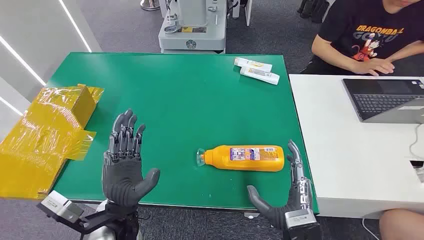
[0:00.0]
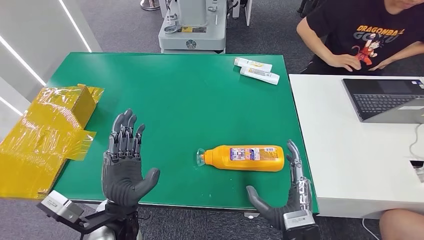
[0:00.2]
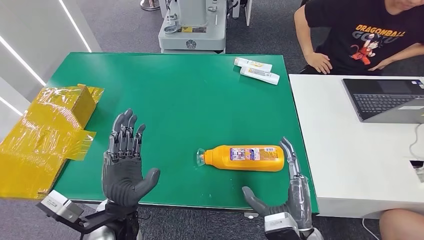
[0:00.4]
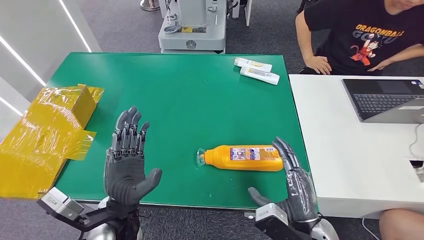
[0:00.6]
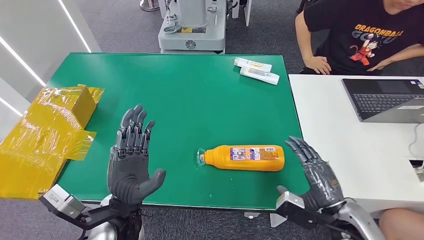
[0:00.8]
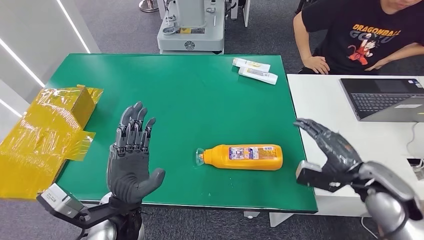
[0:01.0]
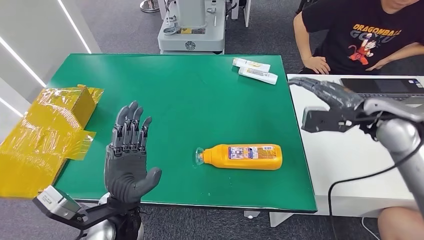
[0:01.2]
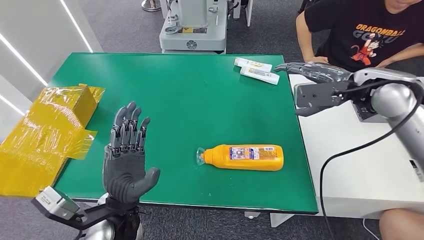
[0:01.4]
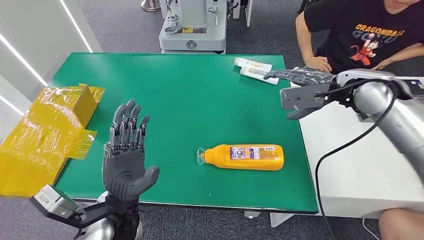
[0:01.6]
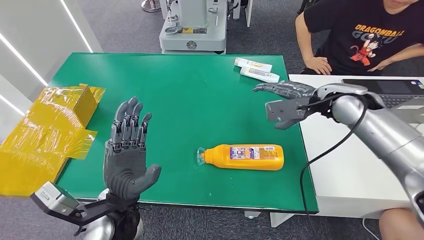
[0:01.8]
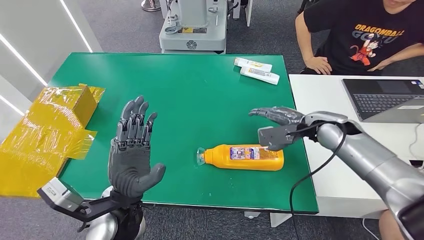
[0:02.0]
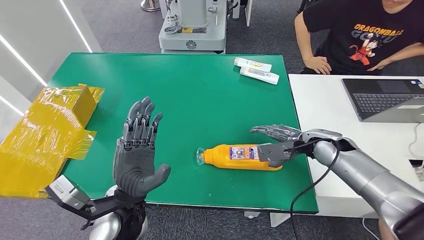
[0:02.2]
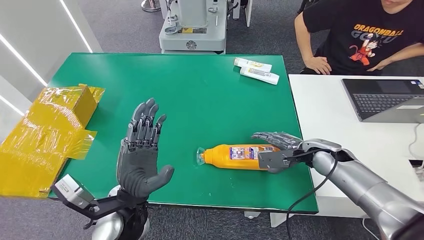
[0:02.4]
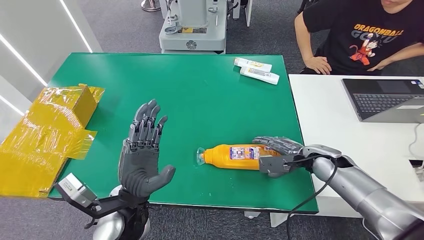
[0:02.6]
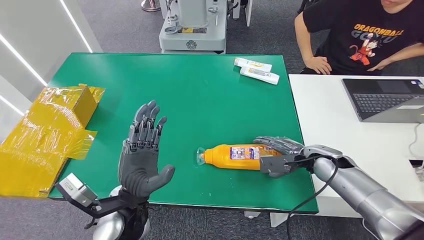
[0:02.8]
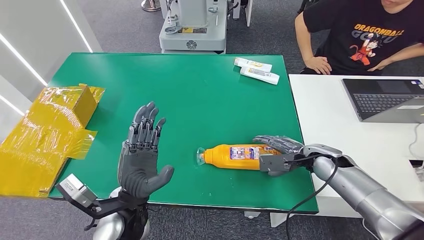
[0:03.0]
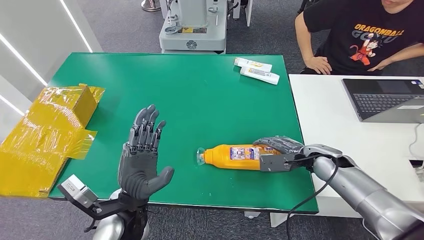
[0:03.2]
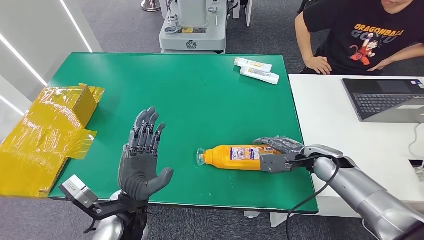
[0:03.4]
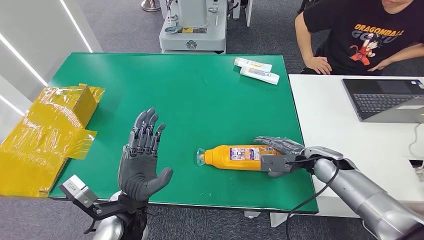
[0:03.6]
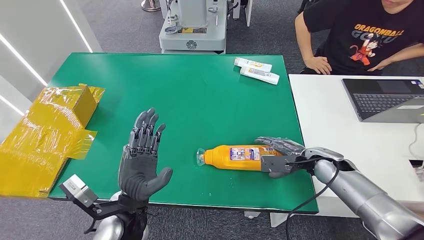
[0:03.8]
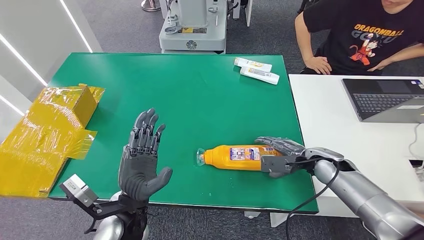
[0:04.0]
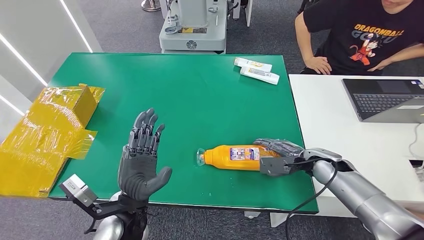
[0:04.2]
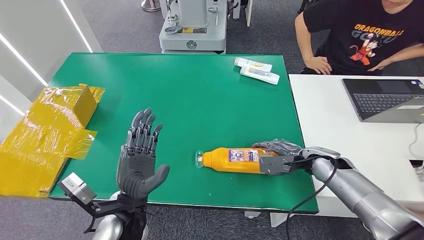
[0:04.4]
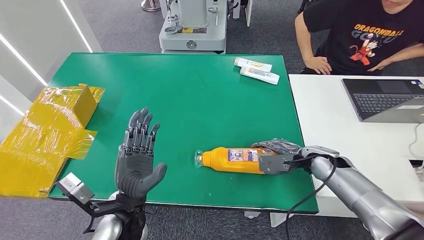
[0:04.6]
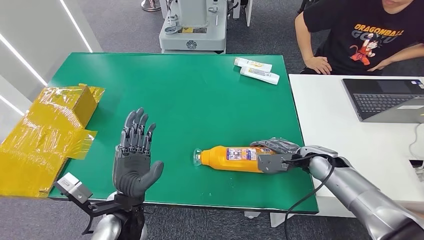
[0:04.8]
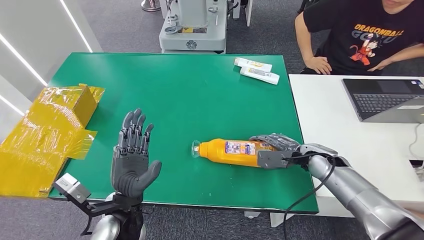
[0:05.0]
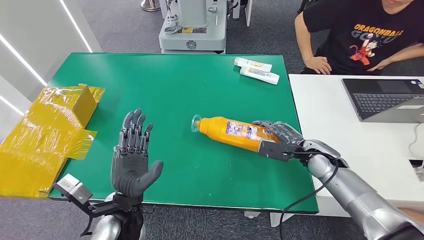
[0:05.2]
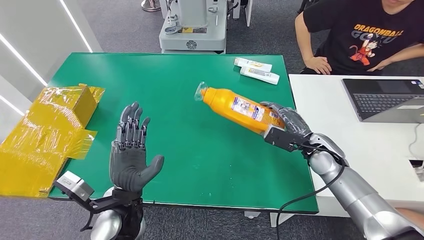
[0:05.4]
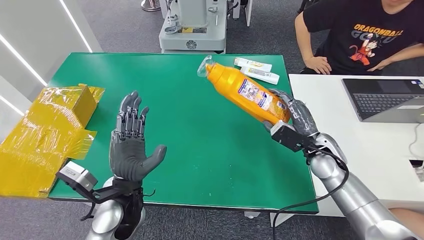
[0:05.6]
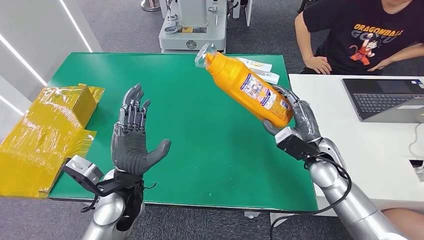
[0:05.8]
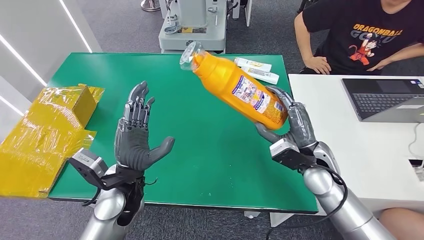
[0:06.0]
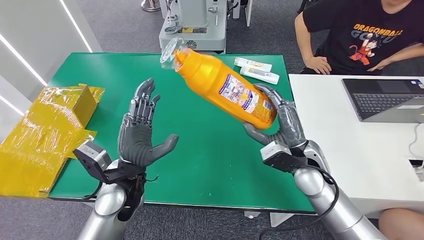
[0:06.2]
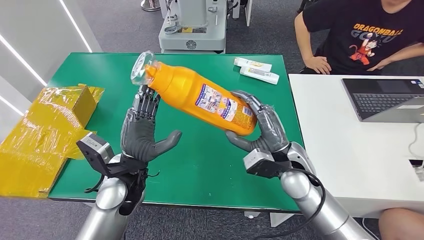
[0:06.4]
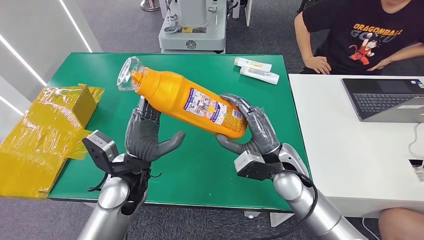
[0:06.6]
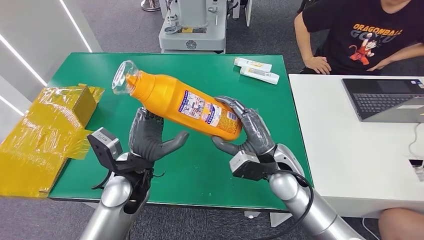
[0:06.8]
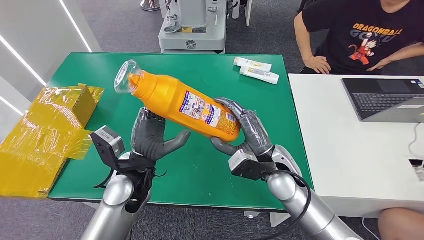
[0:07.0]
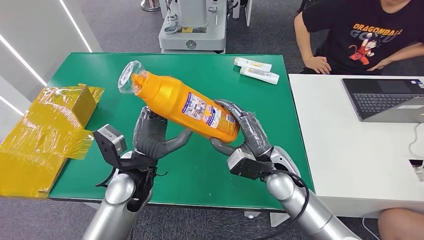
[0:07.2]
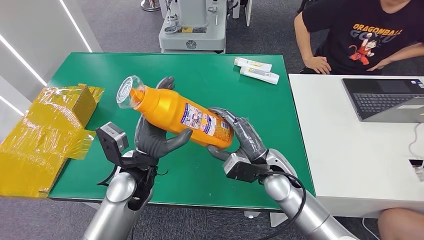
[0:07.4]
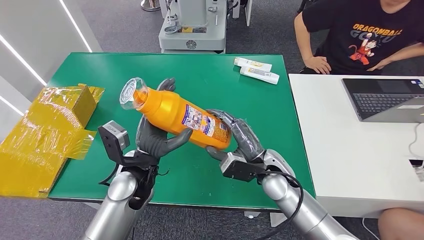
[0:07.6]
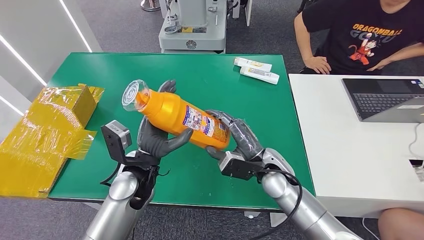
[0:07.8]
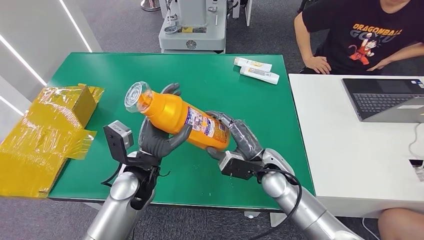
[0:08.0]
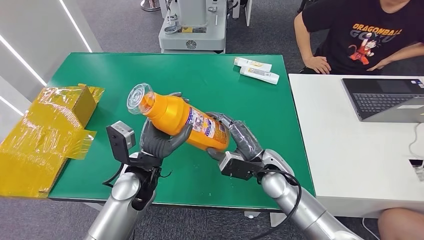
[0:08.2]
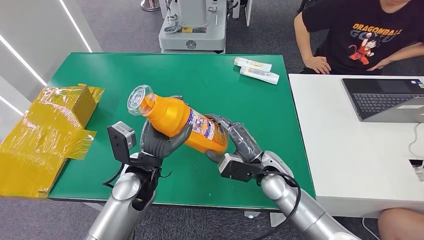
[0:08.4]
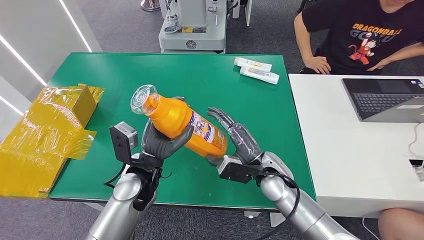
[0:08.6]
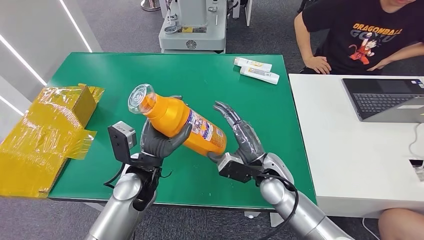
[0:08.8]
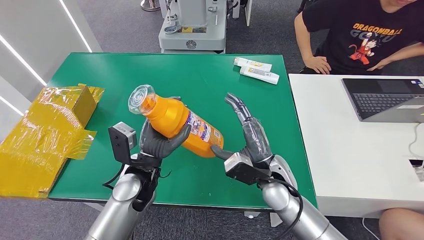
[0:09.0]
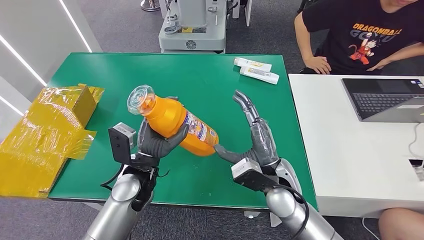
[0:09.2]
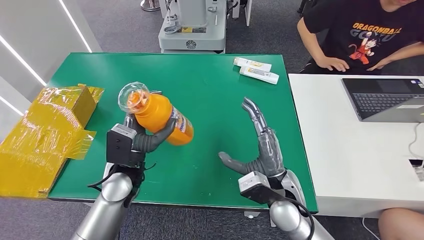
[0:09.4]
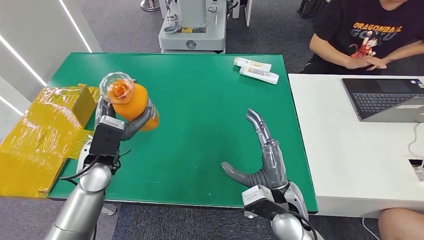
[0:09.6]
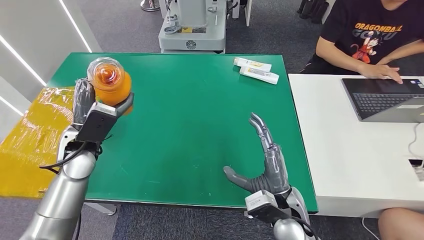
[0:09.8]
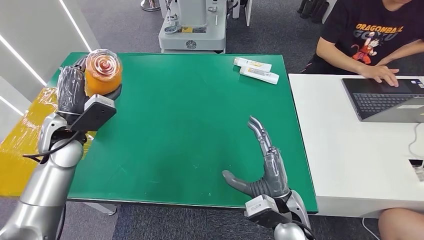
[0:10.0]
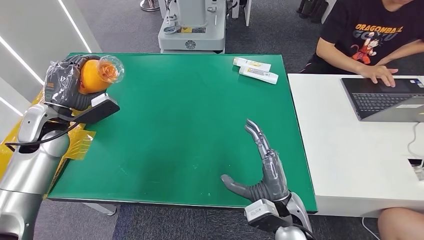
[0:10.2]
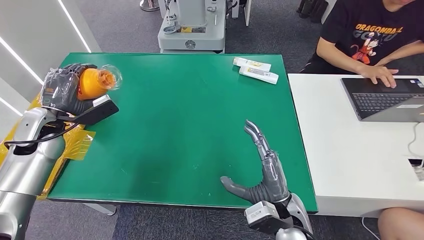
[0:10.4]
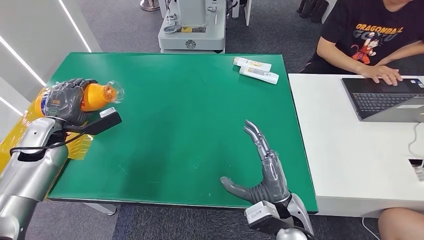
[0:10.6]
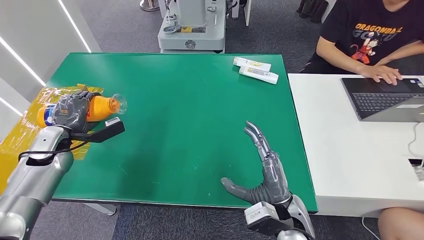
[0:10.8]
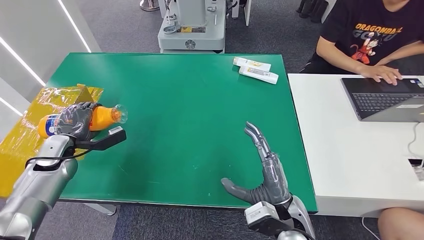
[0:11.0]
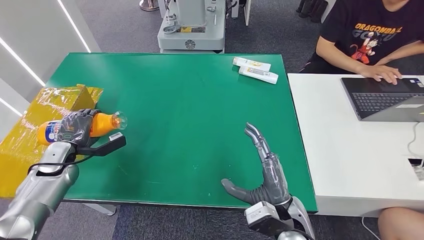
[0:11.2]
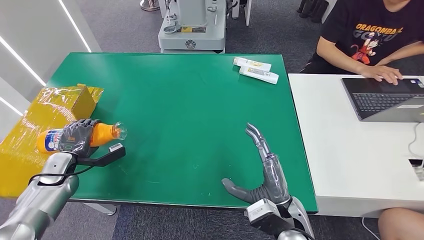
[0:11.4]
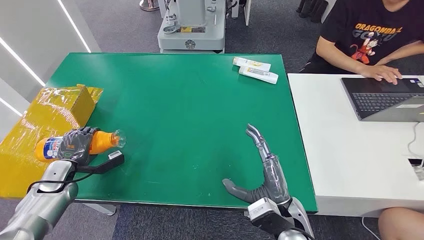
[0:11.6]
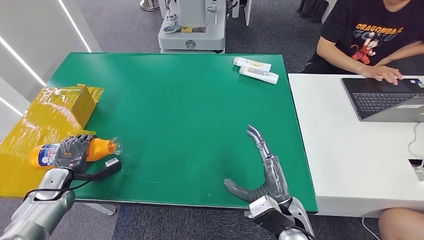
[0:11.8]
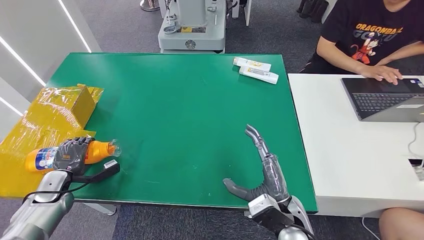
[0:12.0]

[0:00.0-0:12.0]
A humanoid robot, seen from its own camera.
Step, 0:00.0 to 0:06.0: Pick up the bottle from the table.
0:01.6 to 0:03.0: The right hand moves downward, approximately 20 cm.
0:03.0 to 0:04.4: The hands make only small movements.
0:04.4 to 0:06.0: The right hand heads to the left and upward, covering approximately 10 cm. Meanwhile the left hand goes about 5 cm forward.
0:07.6 to 0:09.0: The hands move only a little.
0:10.4 to 0:12.0: The left hand shifts some 20 cm downward and backward.

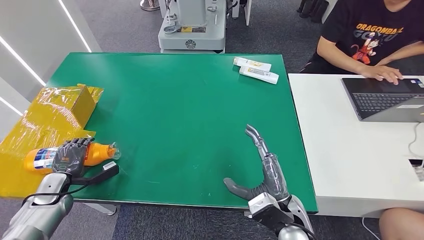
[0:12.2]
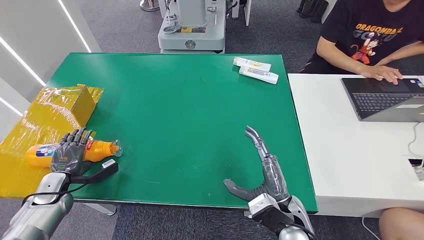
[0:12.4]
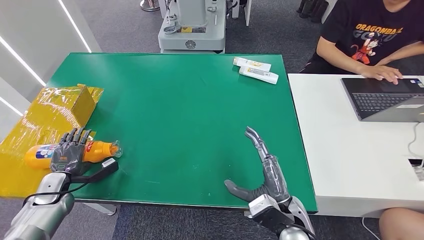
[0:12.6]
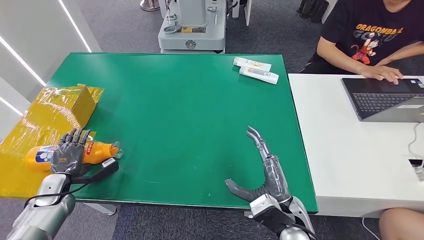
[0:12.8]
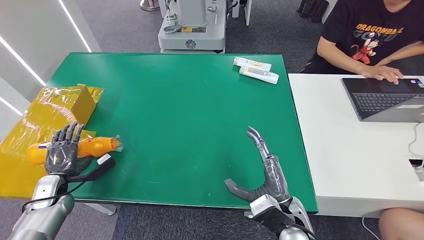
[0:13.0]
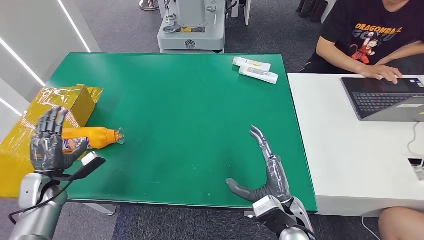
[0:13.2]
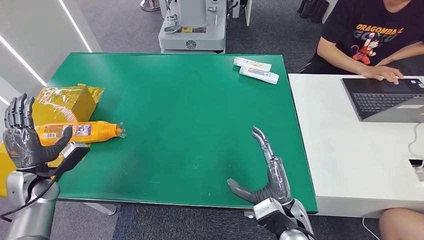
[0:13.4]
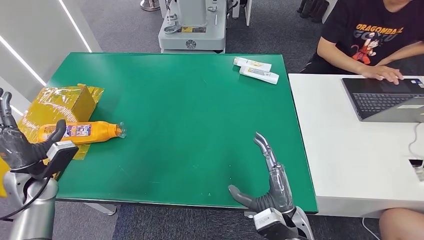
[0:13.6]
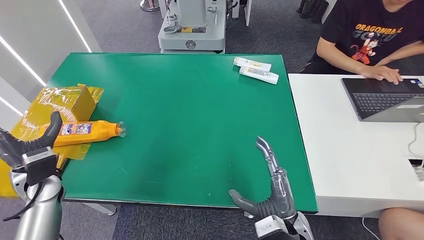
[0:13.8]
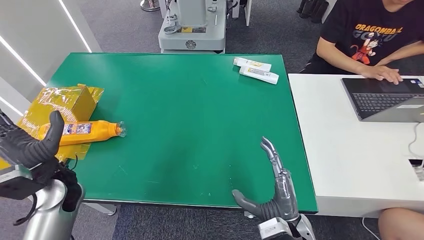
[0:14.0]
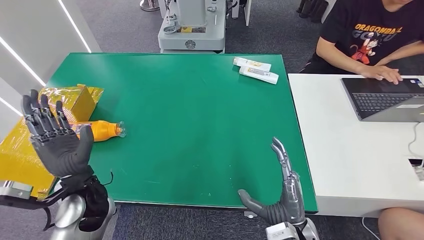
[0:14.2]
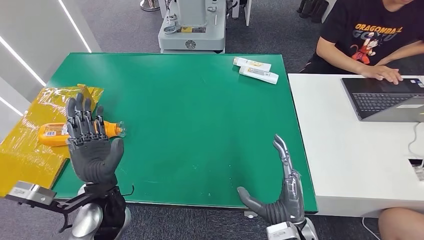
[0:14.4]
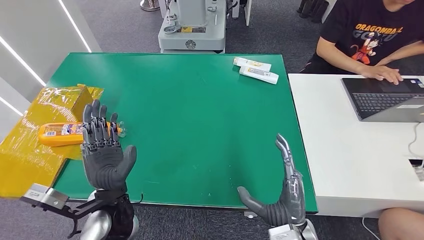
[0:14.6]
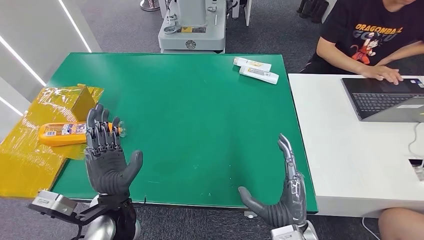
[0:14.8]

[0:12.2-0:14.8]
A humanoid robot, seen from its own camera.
Step, 0:12.2 to 0:14.8: Turn the bottle to the front side.
0:12.2 to 0:13.4: The left hand moves upward, roughly 5 cm.
0:13.4 to 0:14.8: The left hand travels to the right by roughly 25 cm.

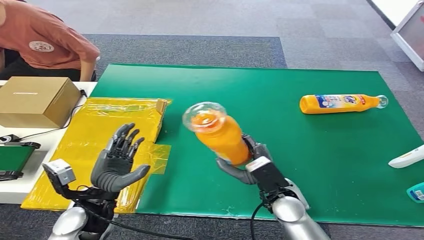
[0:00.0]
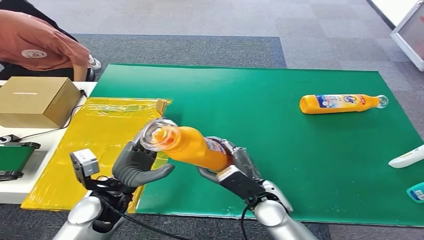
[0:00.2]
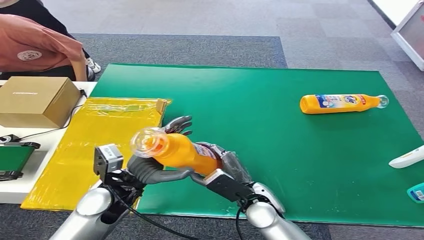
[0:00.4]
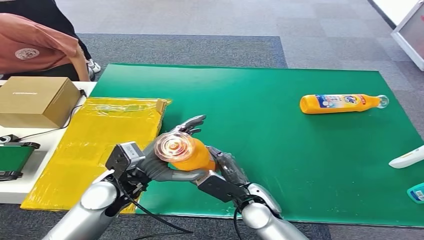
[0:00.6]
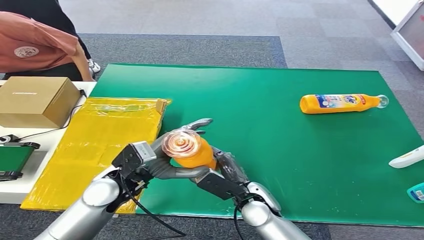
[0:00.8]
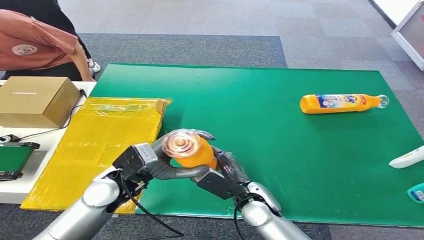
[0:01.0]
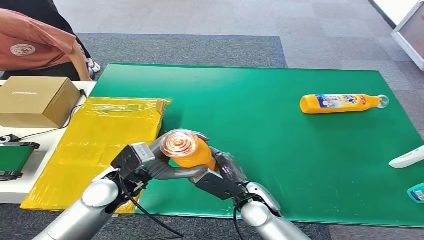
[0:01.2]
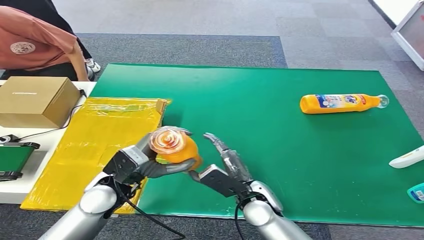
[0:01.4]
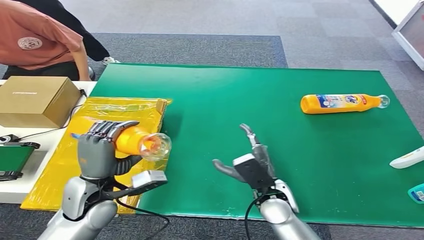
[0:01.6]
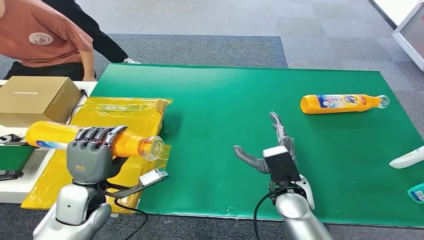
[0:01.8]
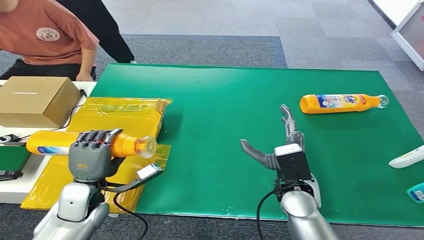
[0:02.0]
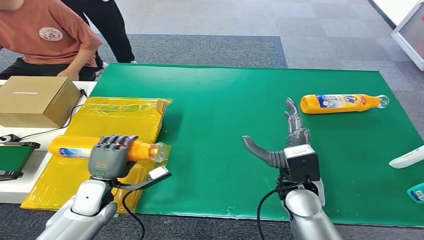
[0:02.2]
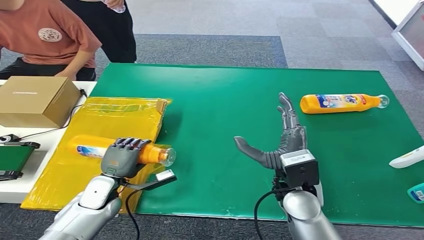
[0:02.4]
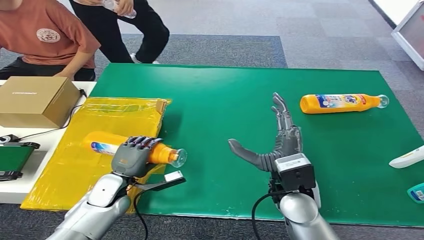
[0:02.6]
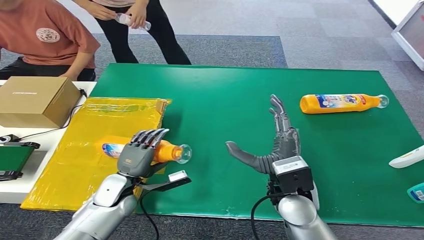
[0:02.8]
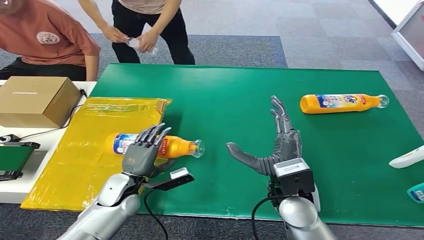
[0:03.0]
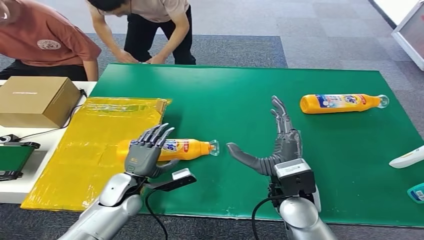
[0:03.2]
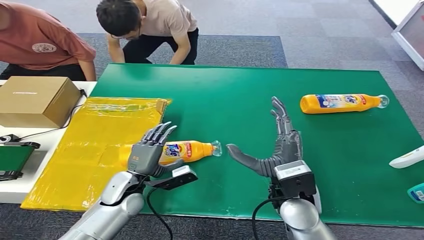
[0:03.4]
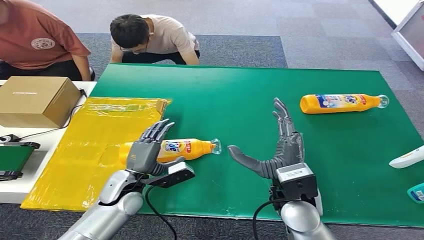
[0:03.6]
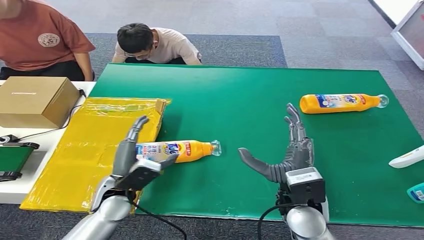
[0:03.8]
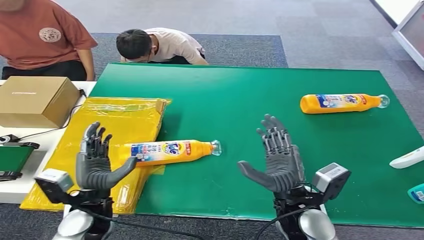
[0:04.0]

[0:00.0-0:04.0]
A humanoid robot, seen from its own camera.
Step, 0:00.2 to 0:03.8: Turn the bottle to the front side.
